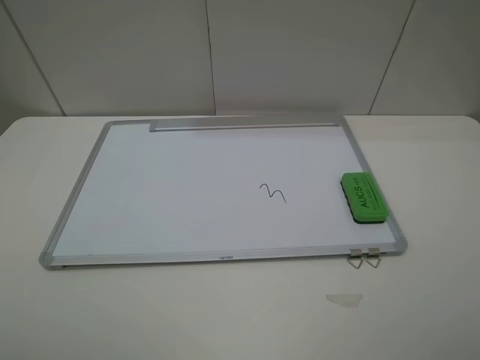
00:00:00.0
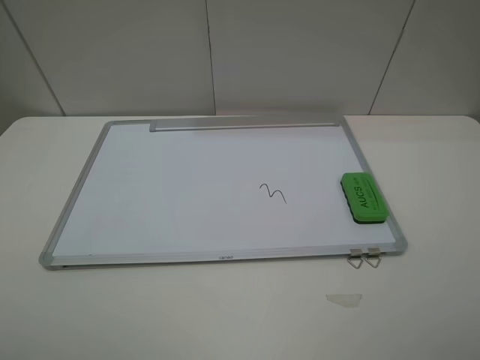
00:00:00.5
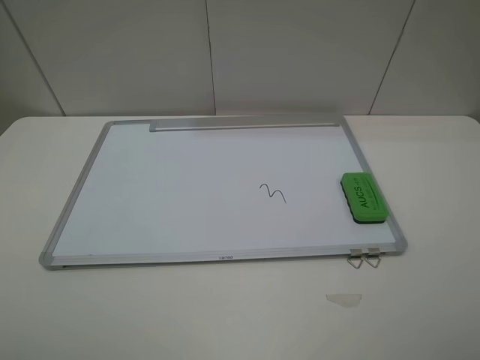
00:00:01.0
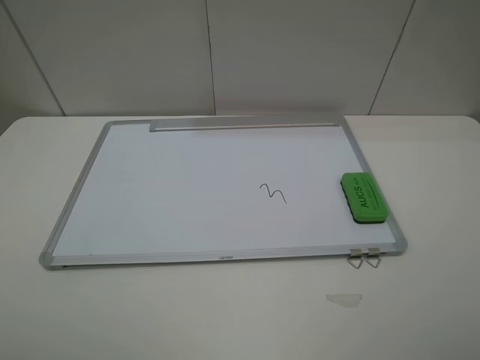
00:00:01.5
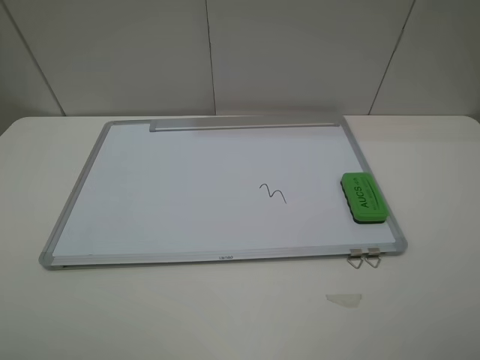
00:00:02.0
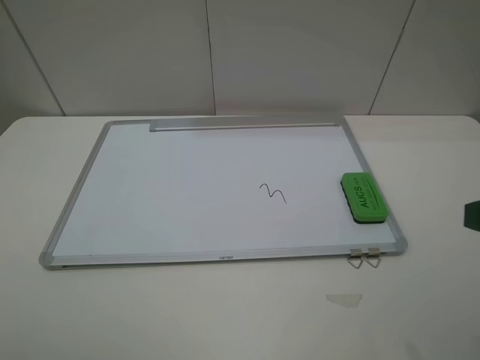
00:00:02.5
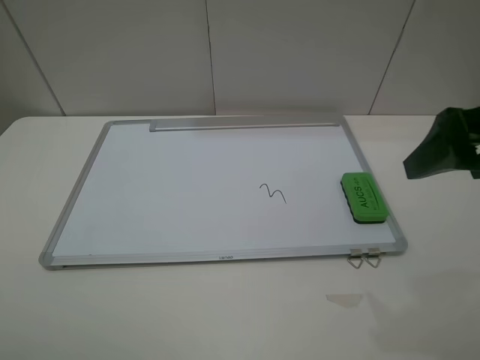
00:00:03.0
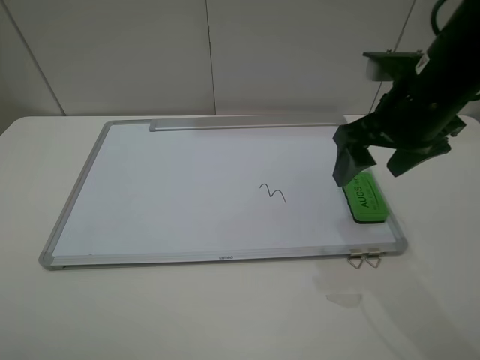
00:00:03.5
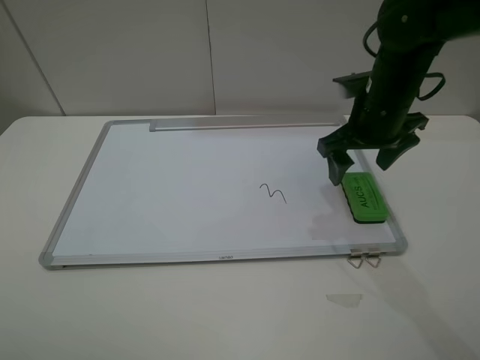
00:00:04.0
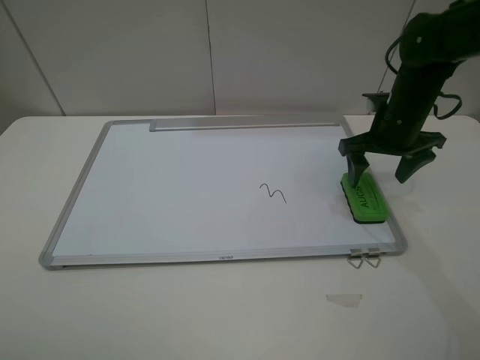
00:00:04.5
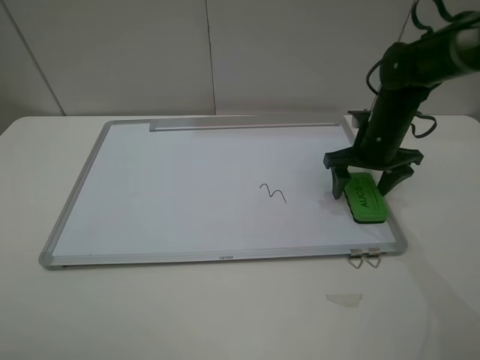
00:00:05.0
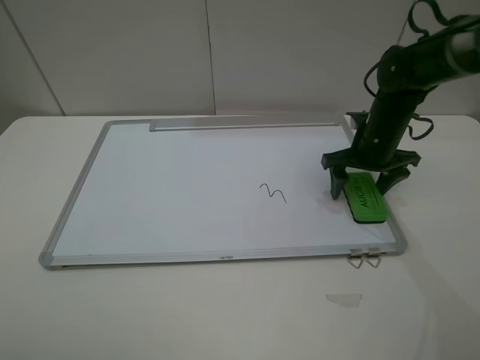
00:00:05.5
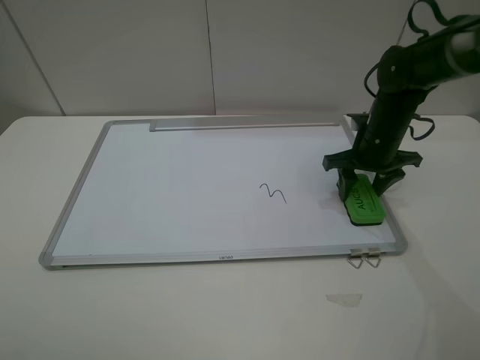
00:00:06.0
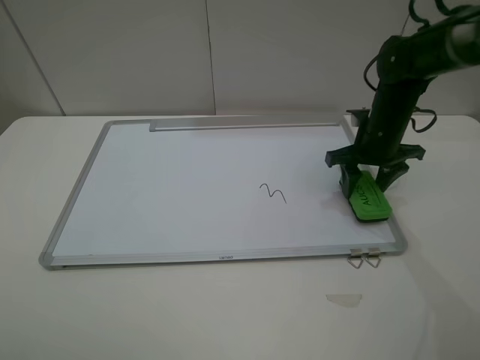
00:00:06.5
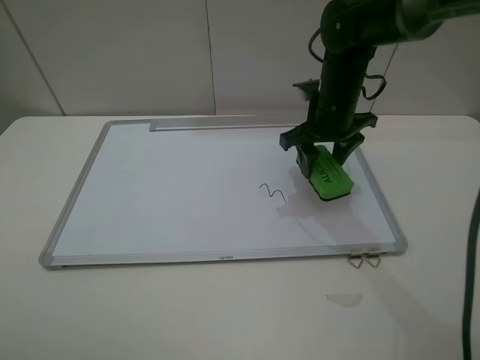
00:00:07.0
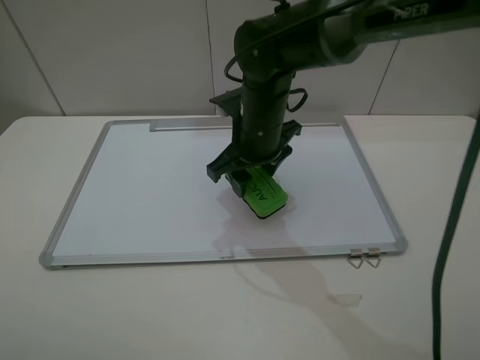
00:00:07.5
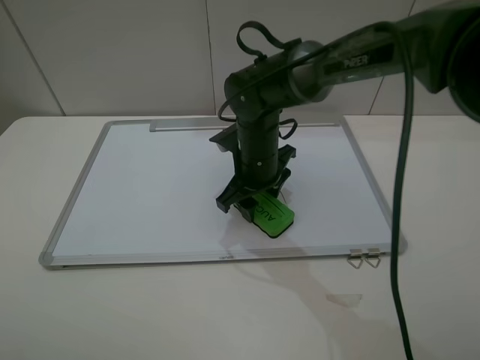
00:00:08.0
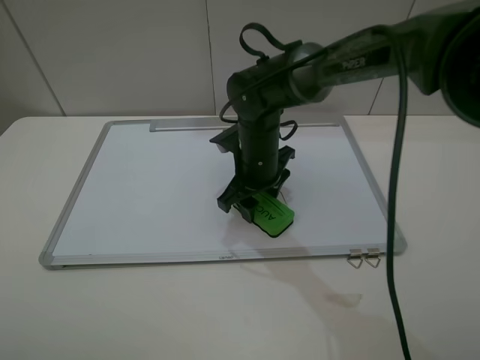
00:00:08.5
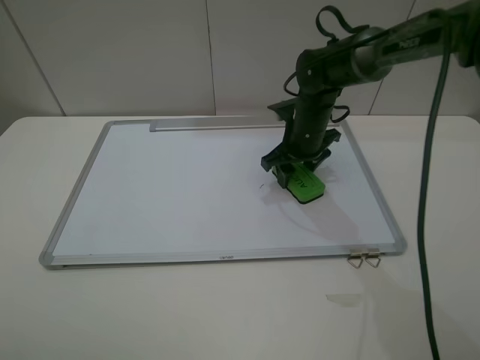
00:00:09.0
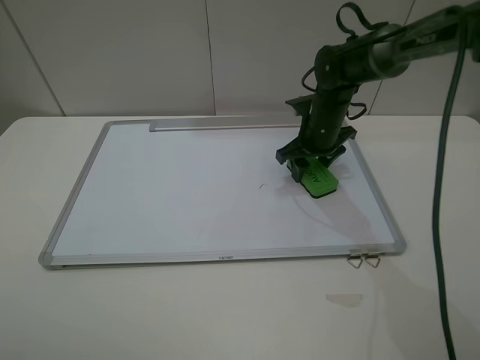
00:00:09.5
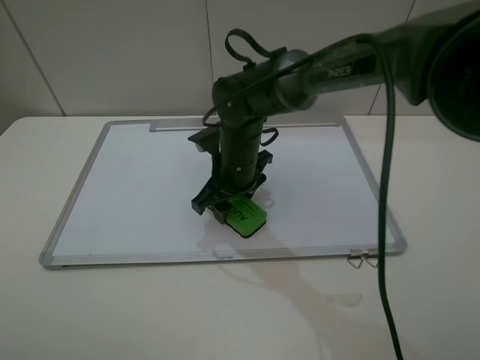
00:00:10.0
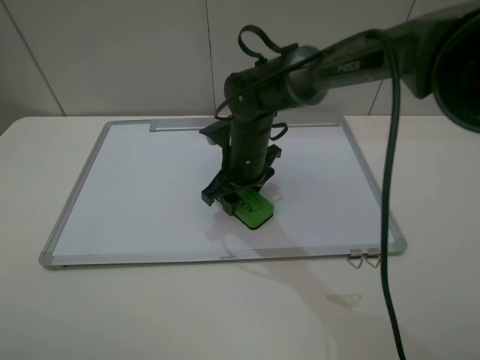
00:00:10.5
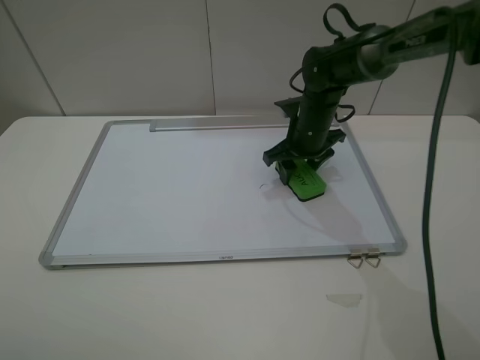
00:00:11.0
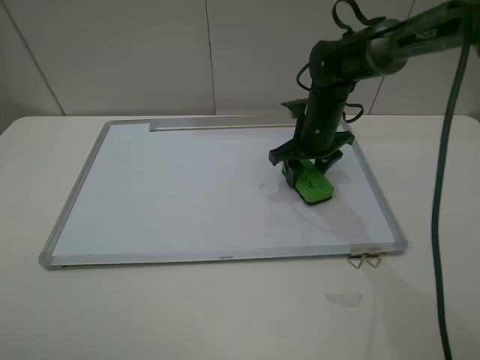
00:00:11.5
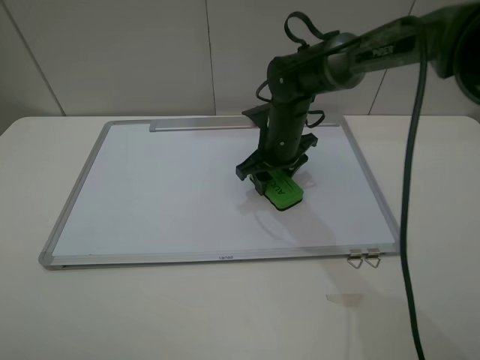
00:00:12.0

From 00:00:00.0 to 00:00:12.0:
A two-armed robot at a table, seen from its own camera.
Step, from 00:00:00.0 to 00:00:06.0: Grasp the eraser with the right gripper.
From 00:00:02.0 to 00:00:04.0: The right gripper travels forward by some 35 cm.
From 00:00:04.0 to 00:00:06.0: The right gripper moves downward, some 10 cm, and closes its fingers.
From 00:00:06.0 to 00:00:08.0: The right gripper shifts approximately 20 cm to the left.
From 00:00:08.0 to 00:00:10.0: The right gripper goes to the right and returns, about 10 cm each way.
From 00:00:10.0 to 00:00:12.0: The right gripper is displaced to the right and forward by roughly 10 cm.

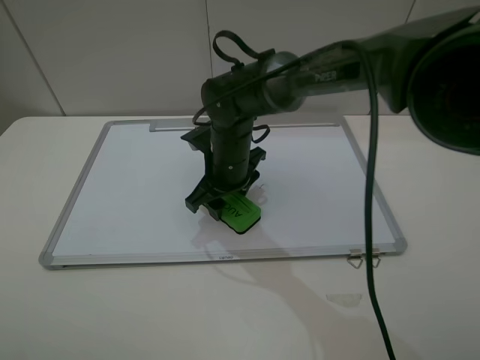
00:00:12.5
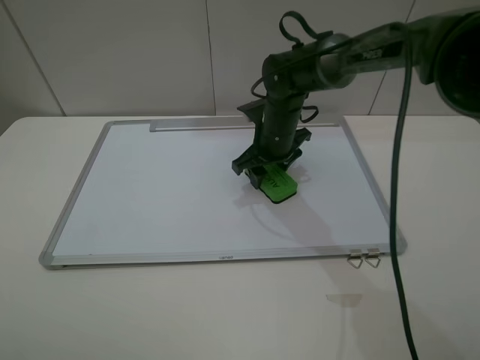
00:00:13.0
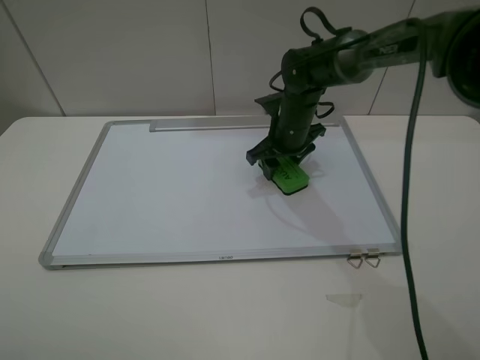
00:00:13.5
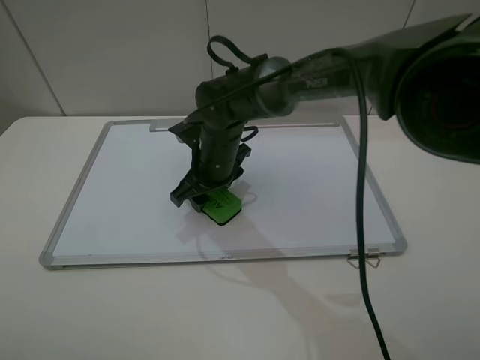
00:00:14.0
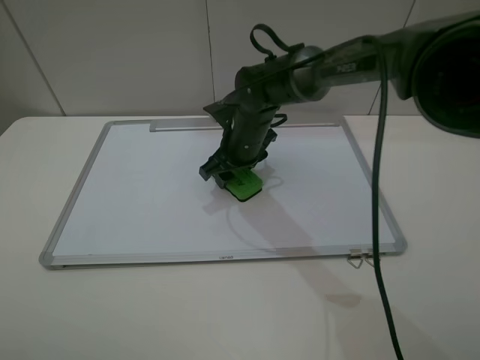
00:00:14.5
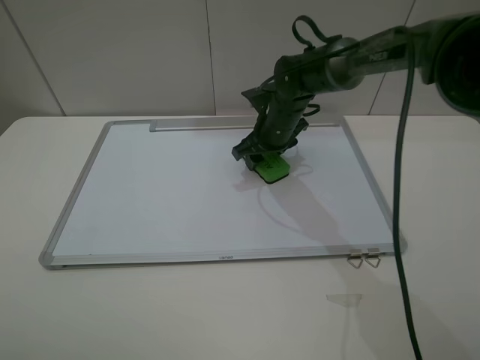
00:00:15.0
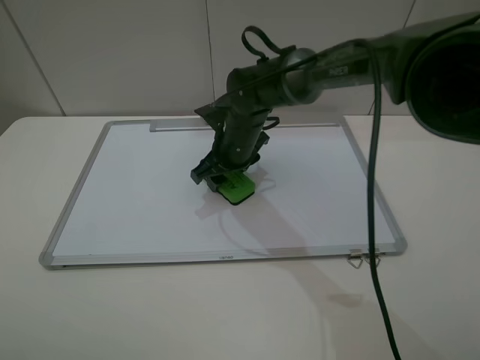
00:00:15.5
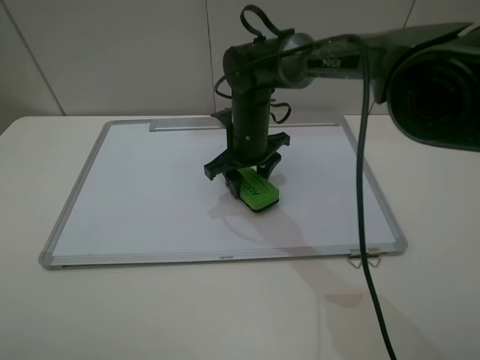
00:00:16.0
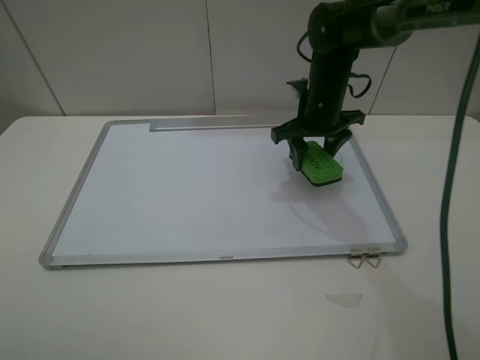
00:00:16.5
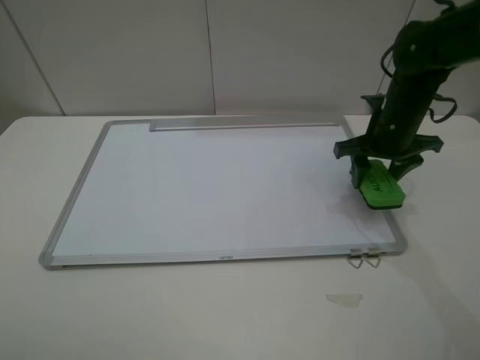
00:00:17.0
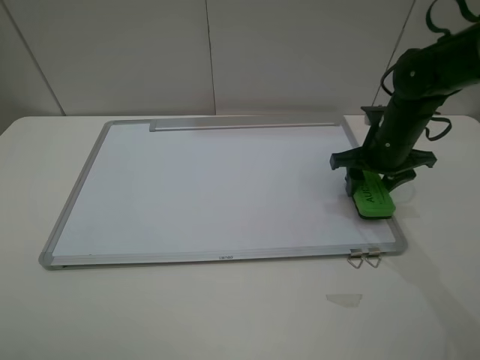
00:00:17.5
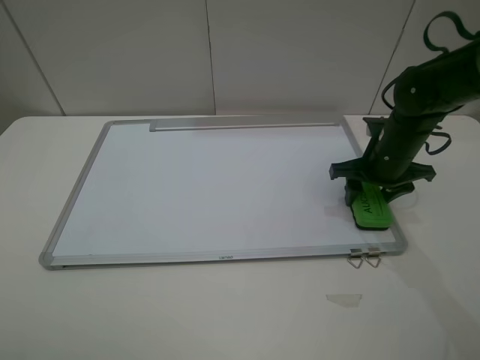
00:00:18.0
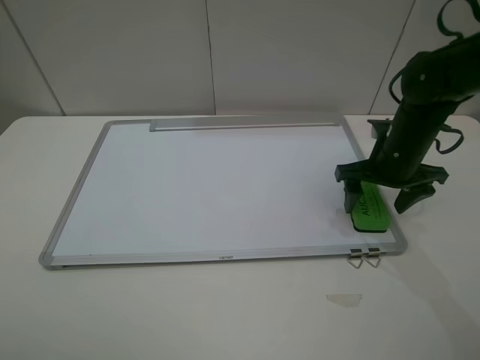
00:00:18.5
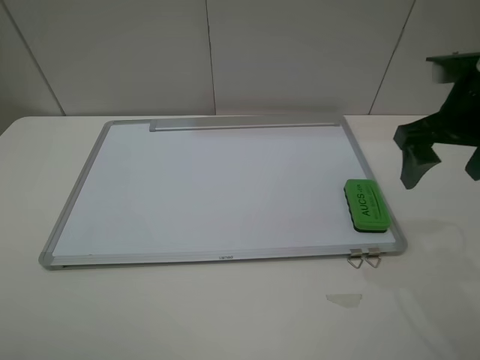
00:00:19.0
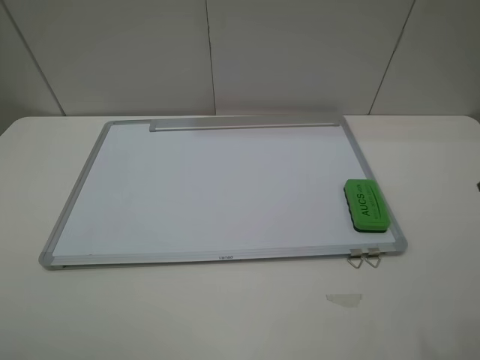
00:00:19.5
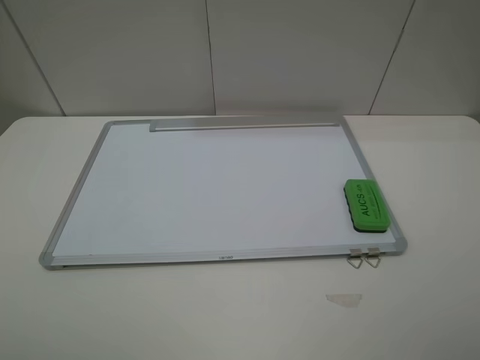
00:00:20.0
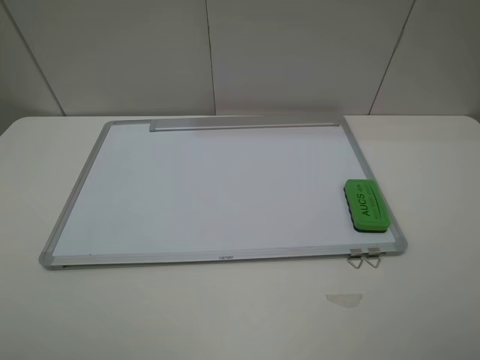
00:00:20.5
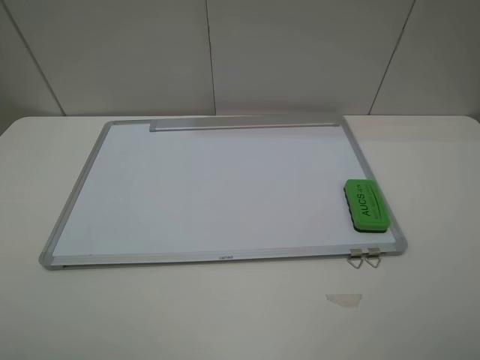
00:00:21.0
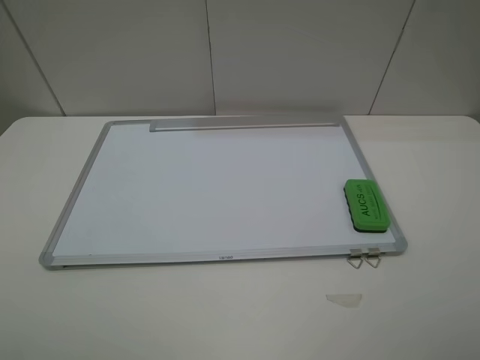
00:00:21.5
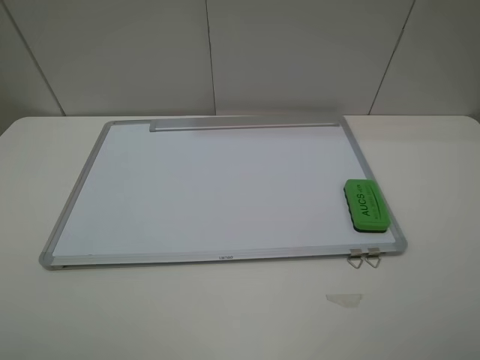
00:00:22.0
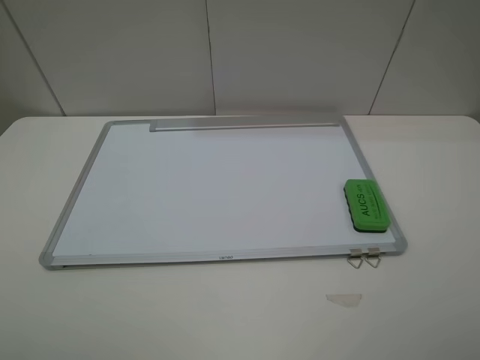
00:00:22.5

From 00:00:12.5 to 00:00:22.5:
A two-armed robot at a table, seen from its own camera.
Step, from 00:00:12.5 to 00:00:15.5: Grasp the eraser and wipe the blackboard with the right gripper.
Step, from 00:00:16.0 to 00:00:18.5: Place the eraser with the right gripper.
From 00:00:12.5 to 00:00:14.5: The right gripper moves left and right over about 10 cm, changing direction 2 times.
From 00:00:14.5 to 00:00:16.5: The right gripper goes left and right, about 15 cm each way, reversing 2 times.
From 00:00:16.5 to 00:00:18.5: The right gripper travels backward and to the right by about 10 cm, and opens its fingers.
From 00:00:18.5 to 00:00:20.5: The right gripper heads backward and upward, covering some 35 cm.
